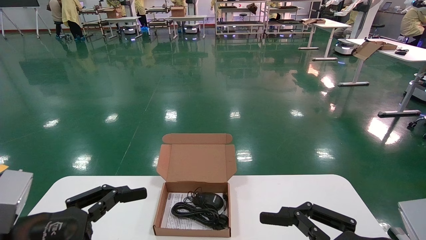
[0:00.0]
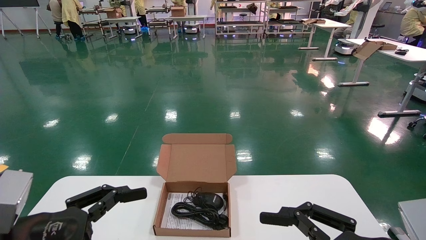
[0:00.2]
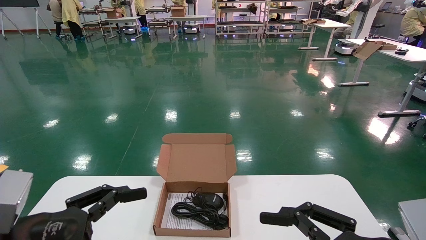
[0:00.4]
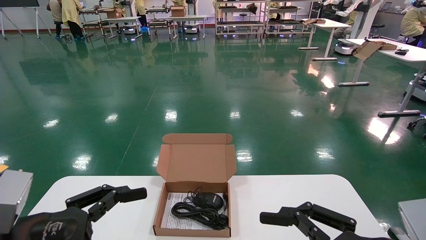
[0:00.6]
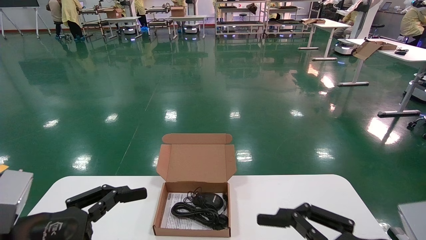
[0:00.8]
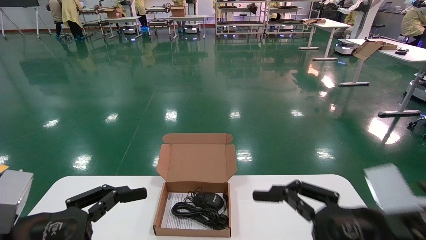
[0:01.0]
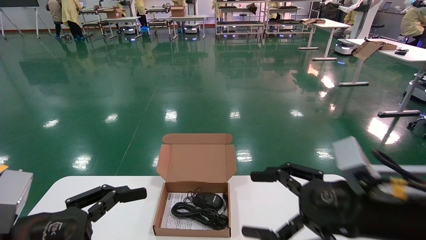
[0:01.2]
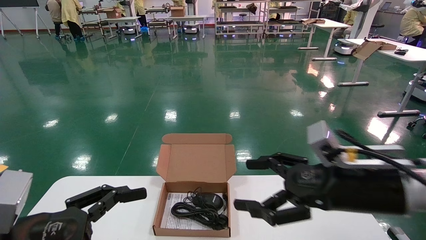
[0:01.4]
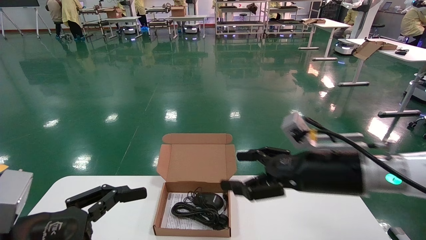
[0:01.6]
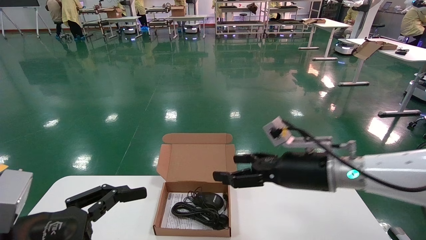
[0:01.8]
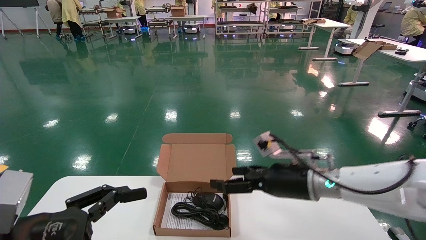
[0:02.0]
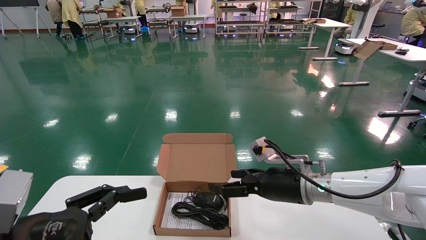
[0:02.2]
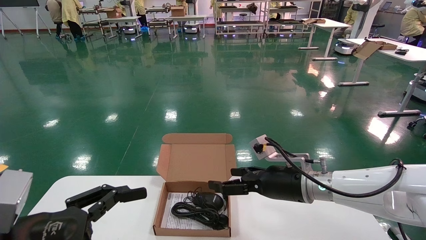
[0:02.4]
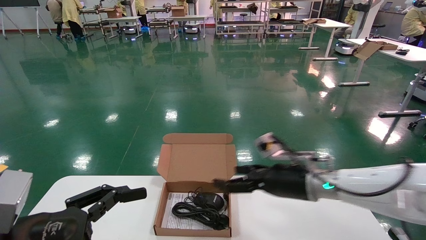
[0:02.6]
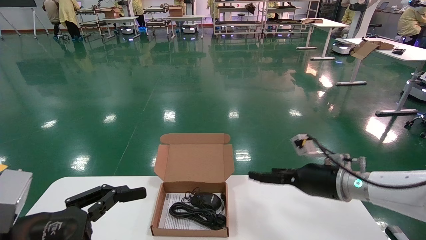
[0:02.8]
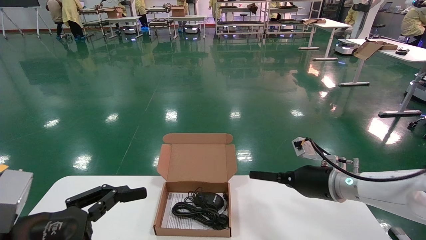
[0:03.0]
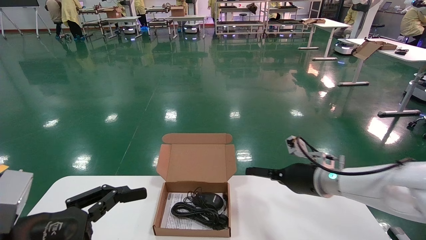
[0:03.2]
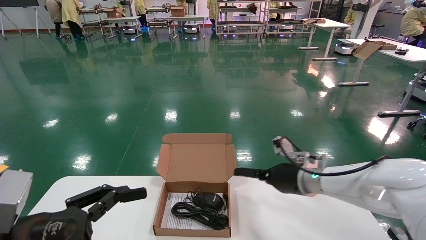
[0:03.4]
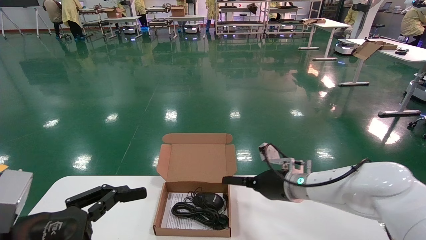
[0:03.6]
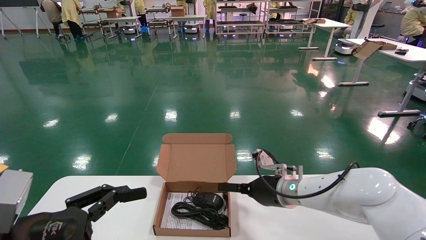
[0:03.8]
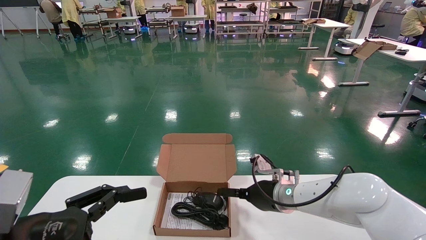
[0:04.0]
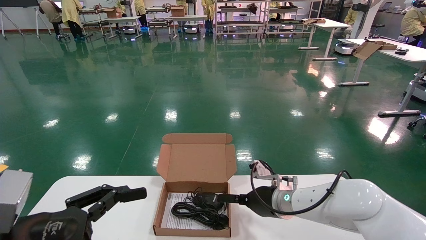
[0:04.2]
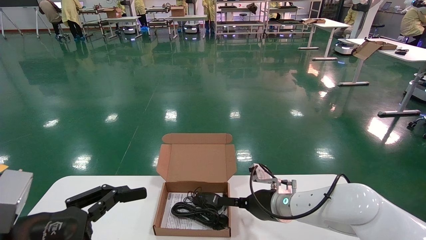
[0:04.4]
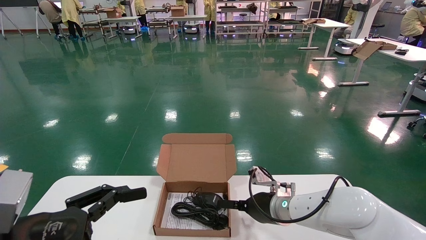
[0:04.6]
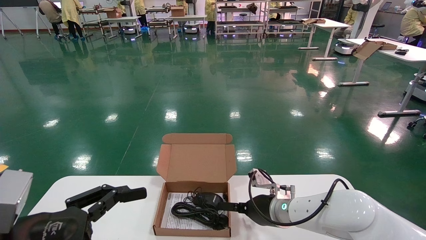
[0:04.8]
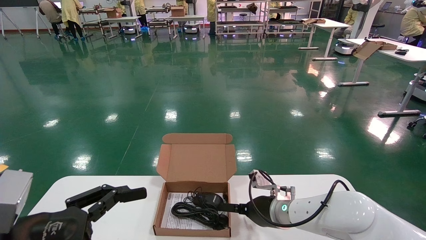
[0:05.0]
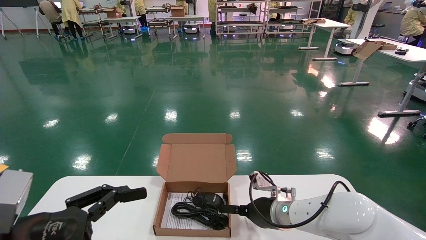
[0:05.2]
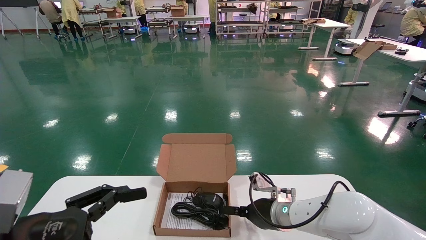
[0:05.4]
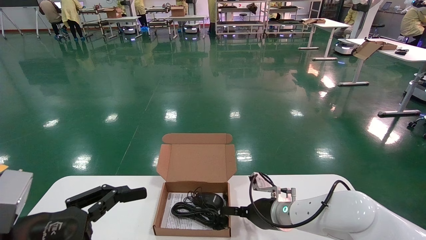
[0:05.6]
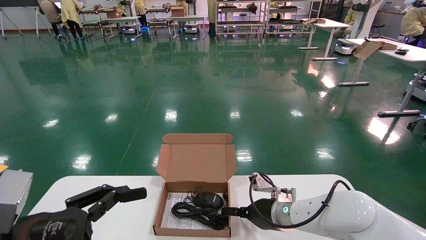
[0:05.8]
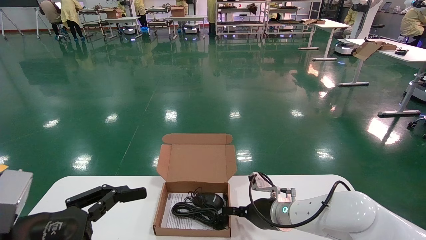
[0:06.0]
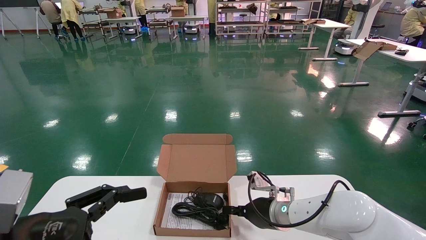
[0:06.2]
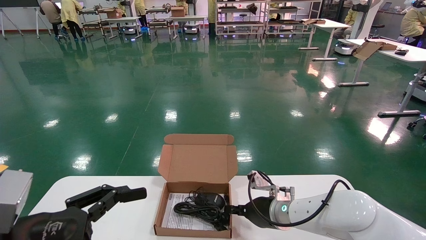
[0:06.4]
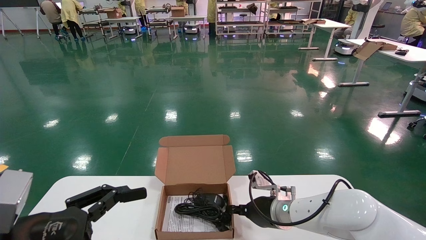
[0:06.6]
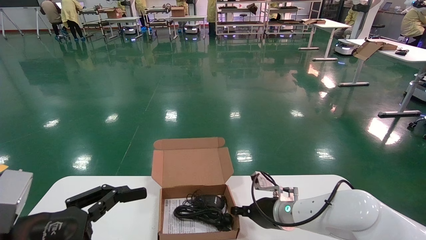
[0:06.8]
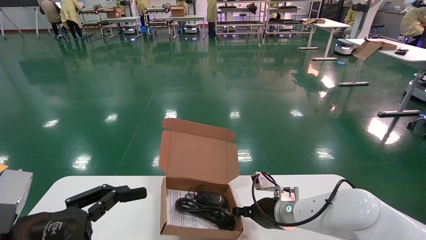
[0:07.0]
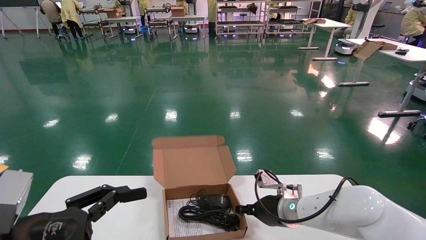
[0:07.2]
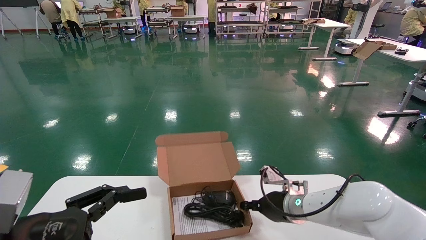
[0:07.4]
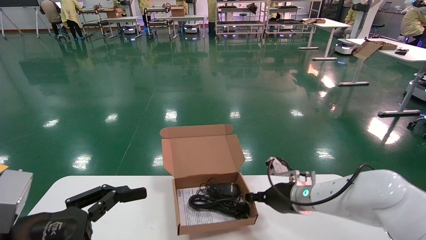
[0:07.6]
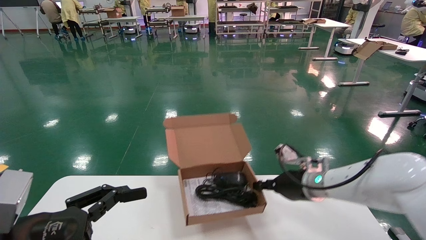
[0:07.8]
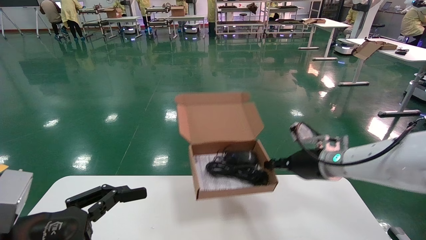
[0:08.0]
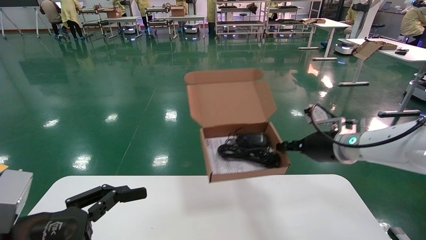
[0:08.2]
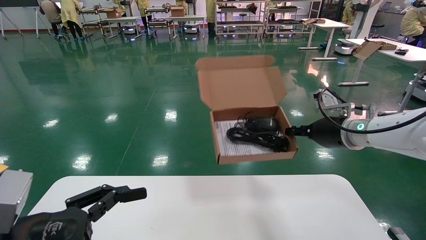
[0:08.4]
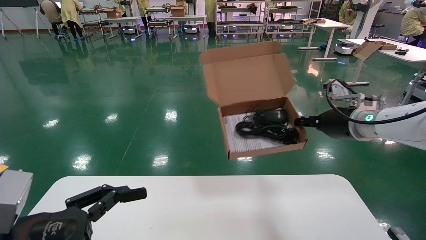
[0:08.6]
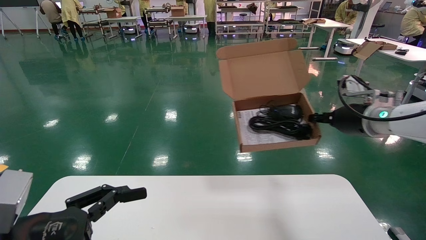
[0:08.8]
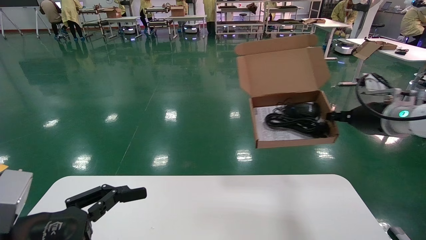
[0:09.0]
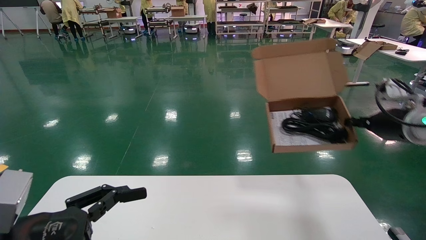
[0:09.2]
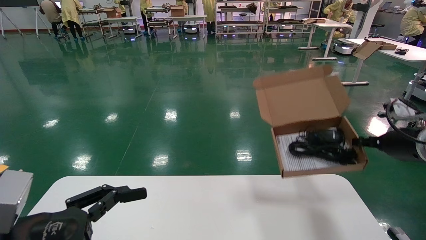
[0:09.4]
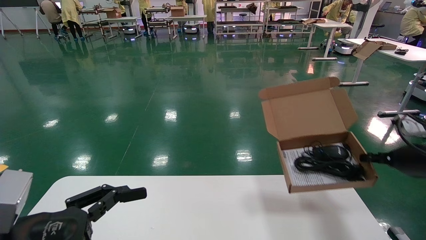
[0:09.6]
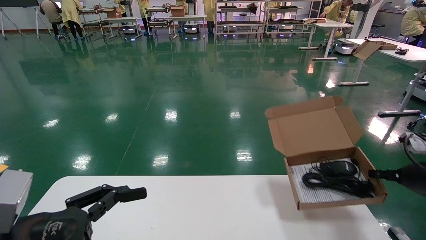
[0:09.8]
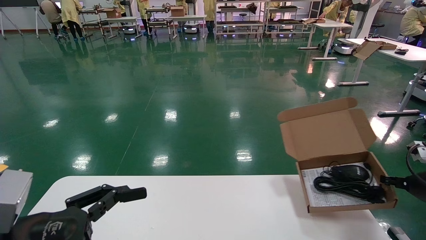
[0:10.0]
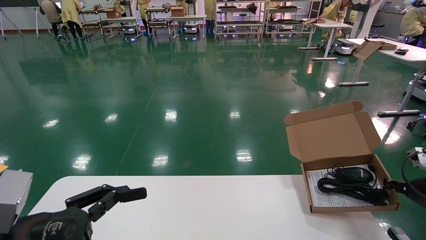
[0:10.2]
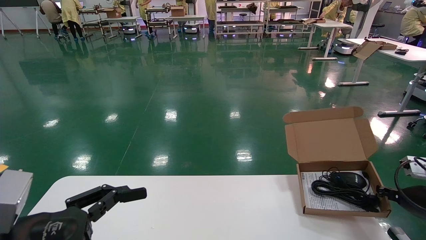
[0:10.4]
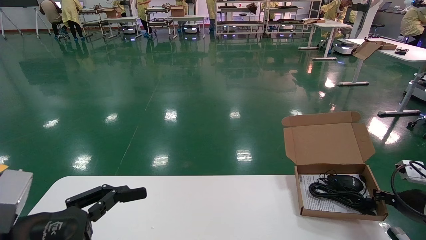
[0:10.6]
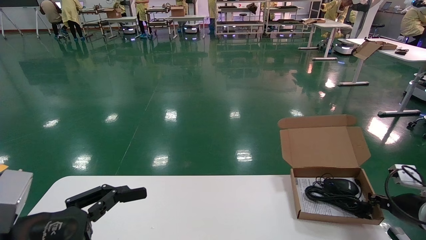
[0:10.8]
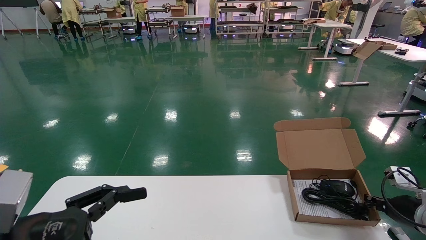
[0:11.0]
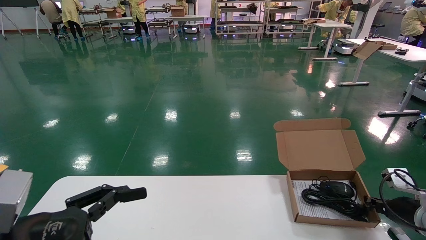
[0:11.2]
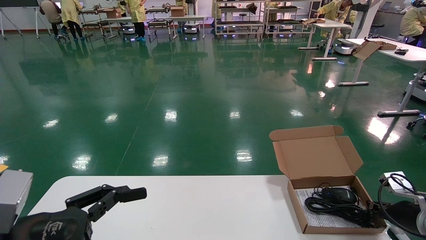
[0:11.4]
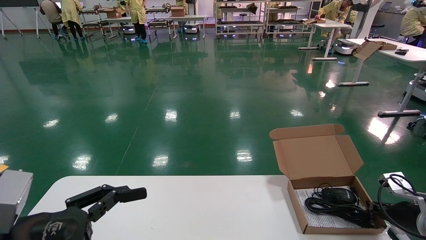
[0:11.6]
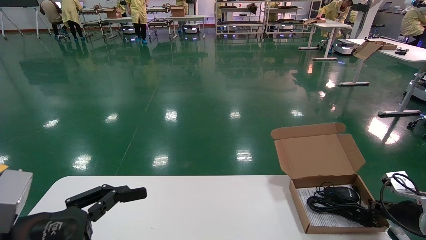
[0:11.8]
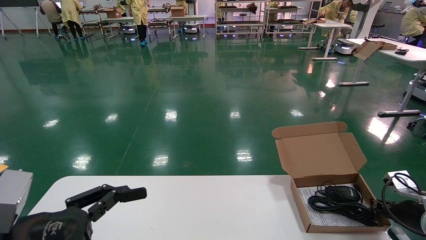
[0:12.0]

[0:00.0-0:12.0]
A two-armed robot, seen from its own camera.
Task of the whole recording: move the position of the storage box with accessories on the table.
Step, 0:01.2 to 0:06.8: Grab and pick up the open mouse box from the accessory packaging area.
0:00.0 to 0:01.6: The right gripper heads forward, covering about 15 cm.
0:01.6 to 0:03.0: The right gripper goes roughly 10 cm forward and downward.
0:03.0 to 0:04.4: The right gripper travels to the left and downward by about 10 cm.
0:04.4 to 0:06.0: The right gripper closes up.
0:06.0 to 0:07.6: The right gripper travels upward by some 5 cm, and closes its fingers.
0:07.6 to 0:09.0: The right gripper travels to the right and upward by about 25 cm.
0:09.0 to 0:10.4: The right gripper moves downward and to the right, approximately 20 cm.
0:10.4 to 0:12.0: The grippers move only a little.

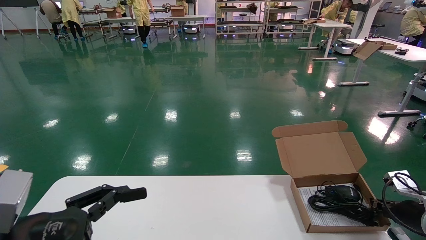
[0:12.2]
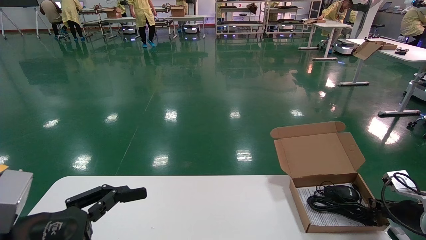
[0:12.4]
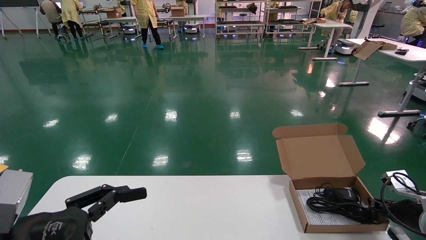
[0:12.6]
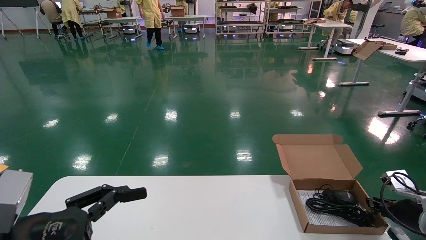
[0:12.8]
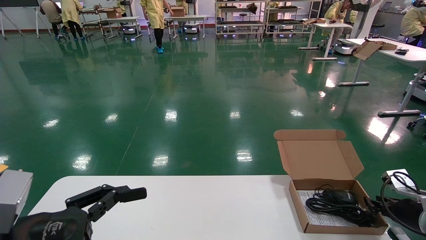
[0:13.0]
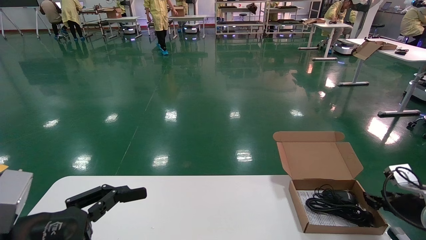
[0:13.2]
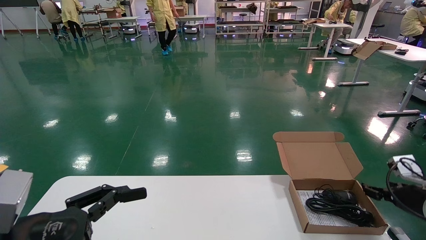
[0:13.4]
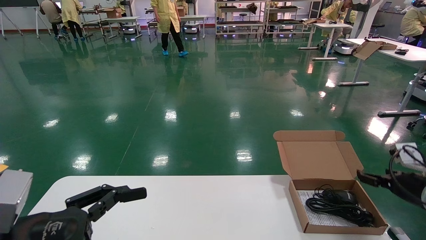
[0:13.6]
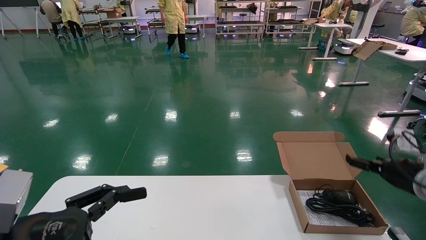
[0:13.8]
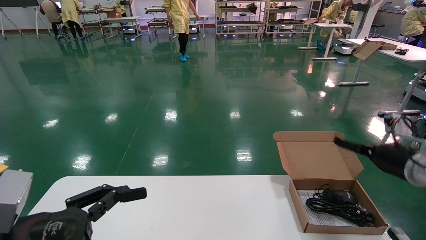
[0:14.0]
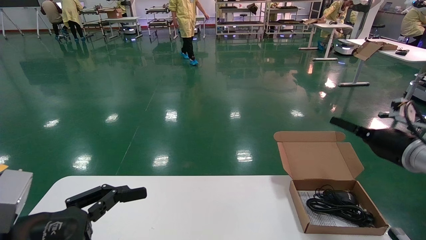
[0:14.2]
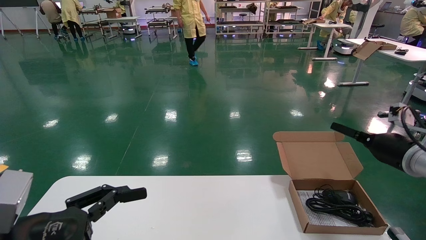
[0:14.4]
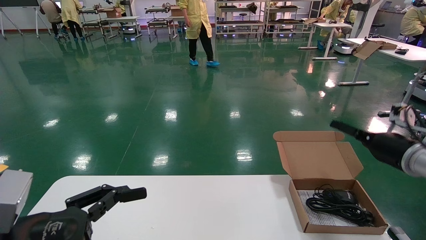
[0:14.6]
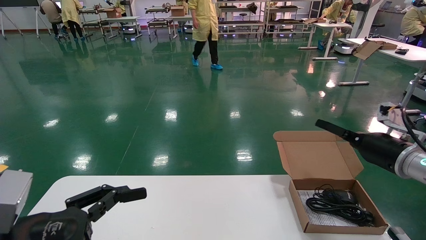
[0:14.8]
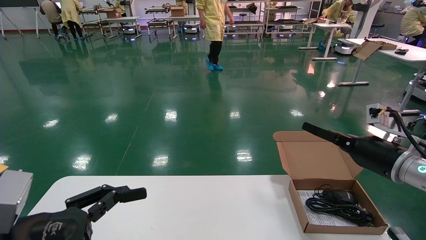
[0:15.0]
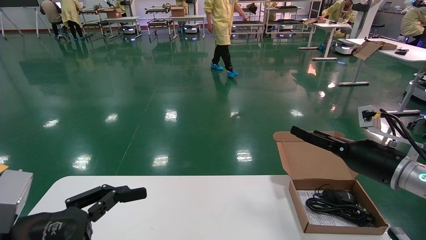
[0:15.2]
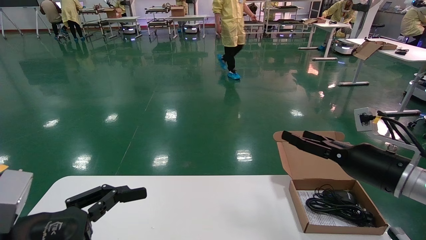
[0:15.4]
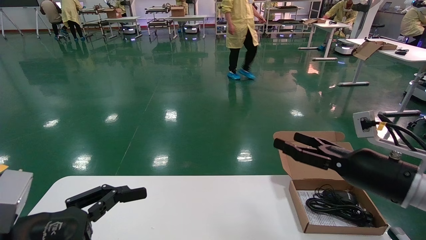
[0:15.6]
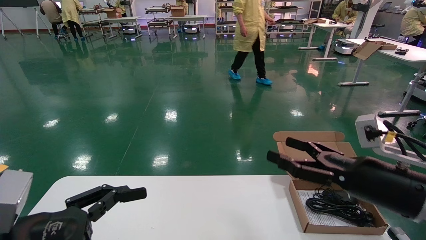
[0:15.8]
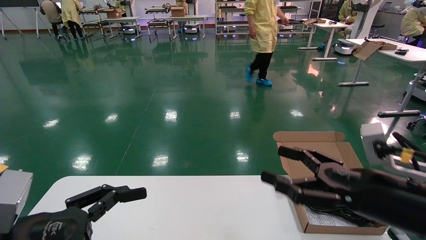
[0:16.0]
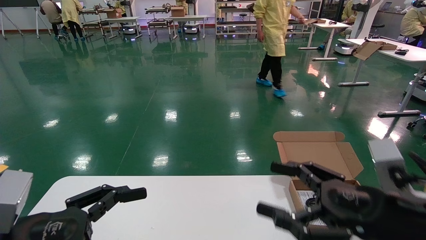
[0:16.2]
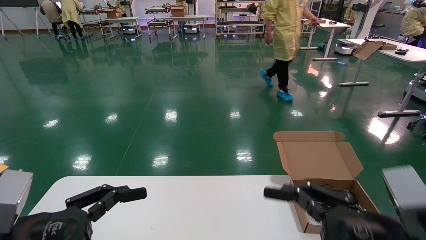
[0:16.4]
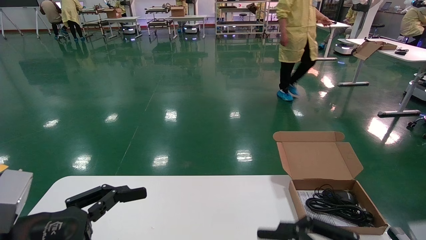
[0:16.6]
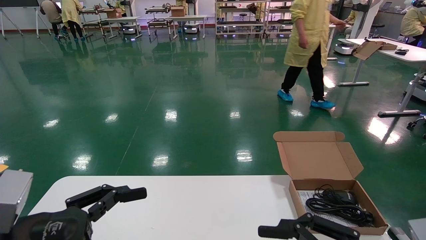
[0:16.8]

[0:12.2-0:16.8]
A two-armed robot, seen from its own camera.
Task of the whole recording: move the position of the storage box with accessories on the table.
0:12.2 to 0:13.8: The right gripper travels upward by approximately 10 cm, and opens up.
0:13.8 to 0:15.2: The right gripper goes roughly 10 cm to the left.
0:15.2 to 0:16.8: The right gripper shifts approximately 25 cm backward.
